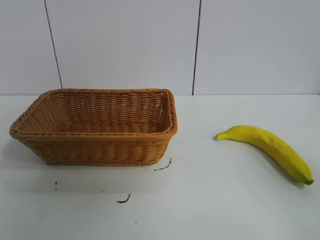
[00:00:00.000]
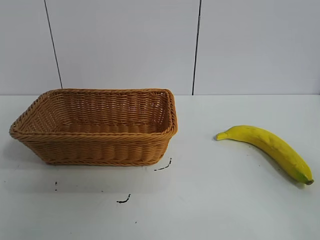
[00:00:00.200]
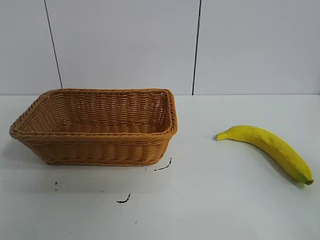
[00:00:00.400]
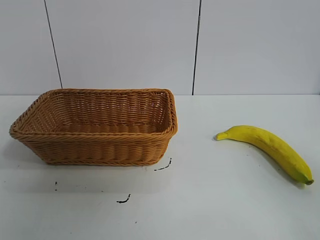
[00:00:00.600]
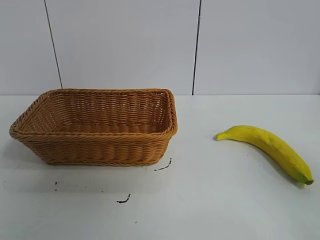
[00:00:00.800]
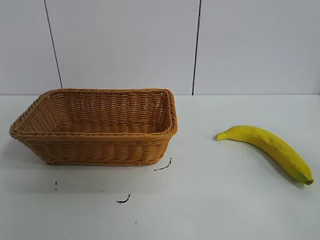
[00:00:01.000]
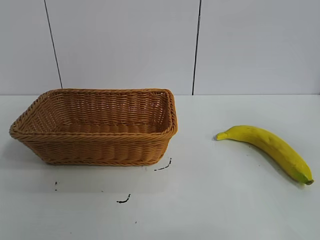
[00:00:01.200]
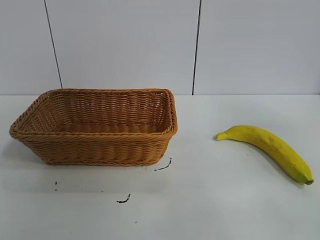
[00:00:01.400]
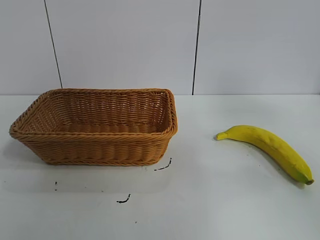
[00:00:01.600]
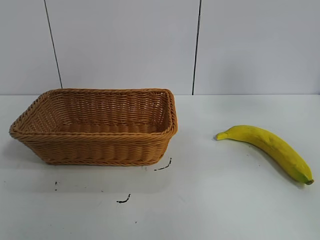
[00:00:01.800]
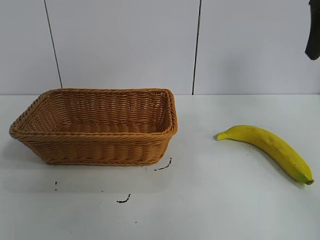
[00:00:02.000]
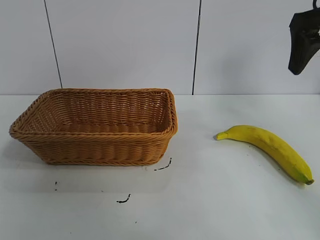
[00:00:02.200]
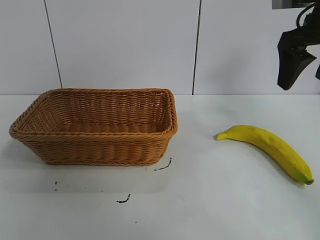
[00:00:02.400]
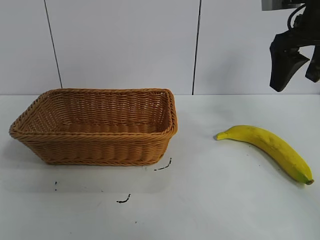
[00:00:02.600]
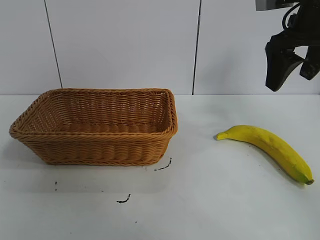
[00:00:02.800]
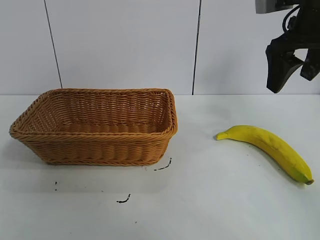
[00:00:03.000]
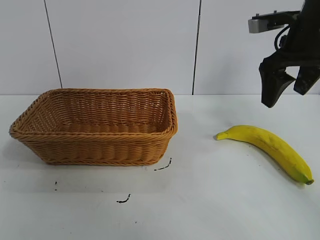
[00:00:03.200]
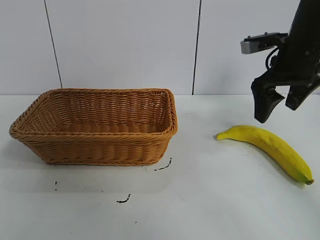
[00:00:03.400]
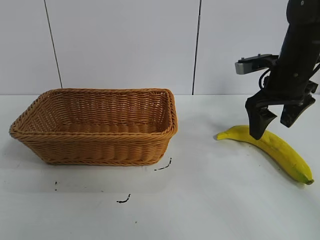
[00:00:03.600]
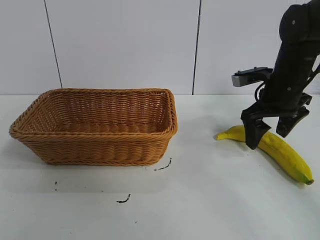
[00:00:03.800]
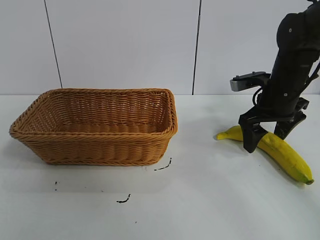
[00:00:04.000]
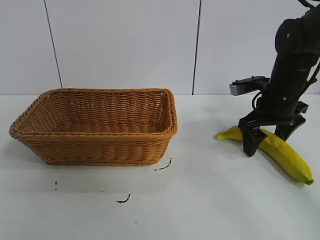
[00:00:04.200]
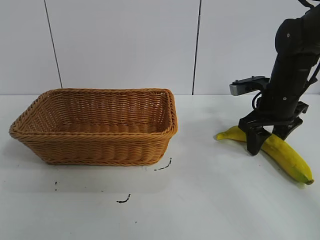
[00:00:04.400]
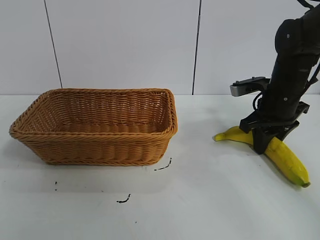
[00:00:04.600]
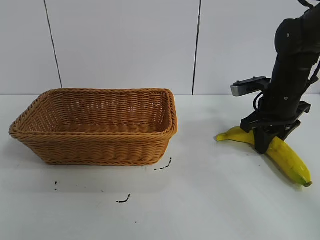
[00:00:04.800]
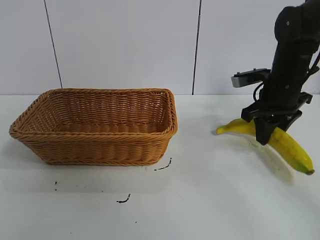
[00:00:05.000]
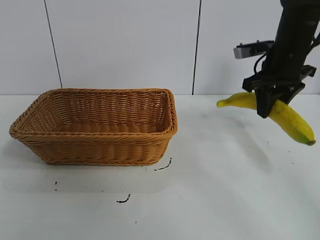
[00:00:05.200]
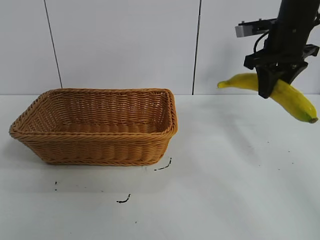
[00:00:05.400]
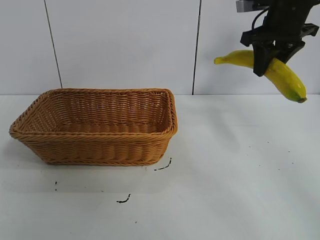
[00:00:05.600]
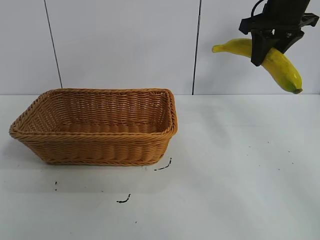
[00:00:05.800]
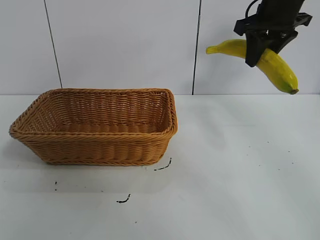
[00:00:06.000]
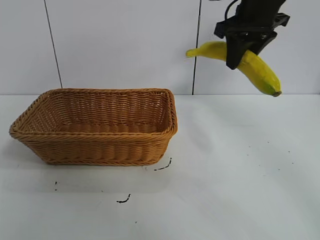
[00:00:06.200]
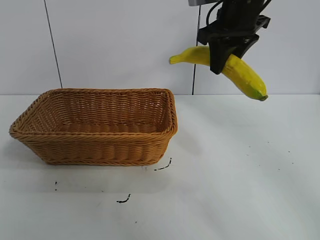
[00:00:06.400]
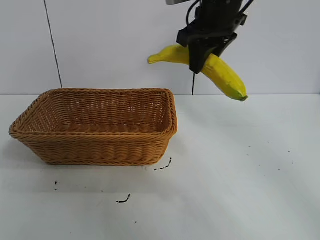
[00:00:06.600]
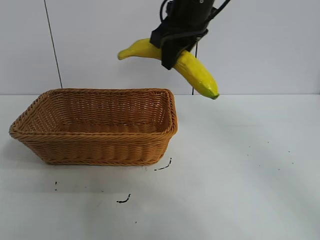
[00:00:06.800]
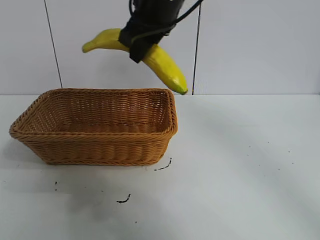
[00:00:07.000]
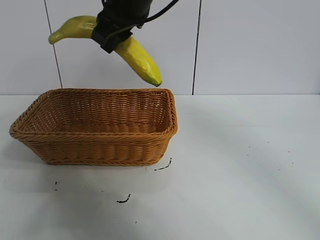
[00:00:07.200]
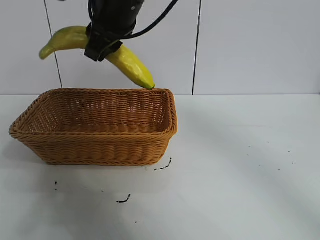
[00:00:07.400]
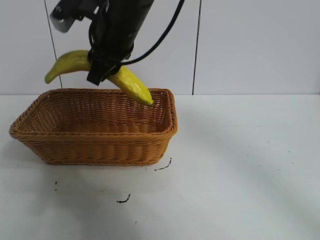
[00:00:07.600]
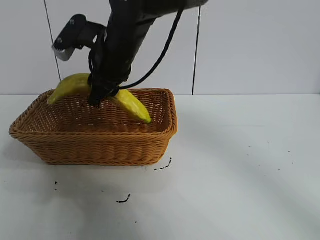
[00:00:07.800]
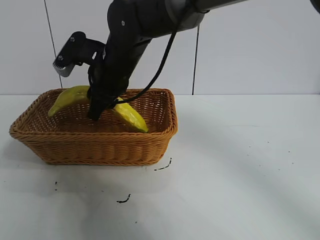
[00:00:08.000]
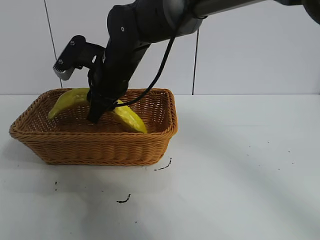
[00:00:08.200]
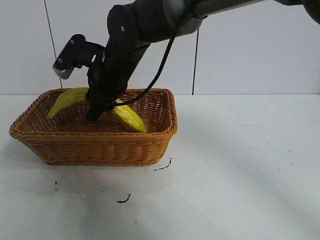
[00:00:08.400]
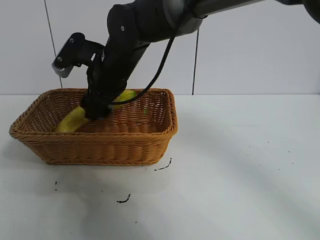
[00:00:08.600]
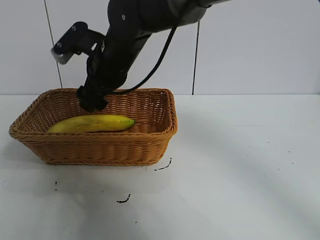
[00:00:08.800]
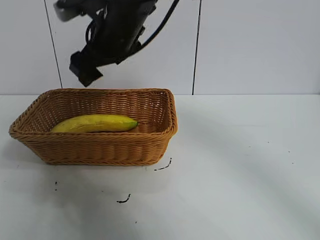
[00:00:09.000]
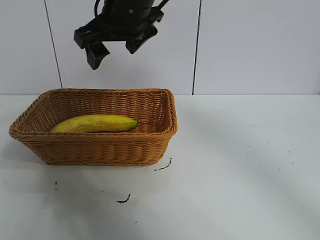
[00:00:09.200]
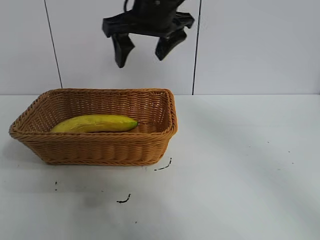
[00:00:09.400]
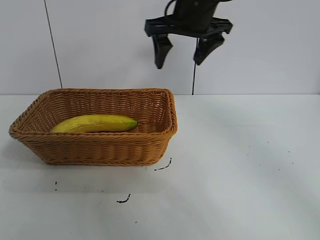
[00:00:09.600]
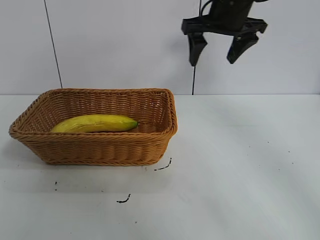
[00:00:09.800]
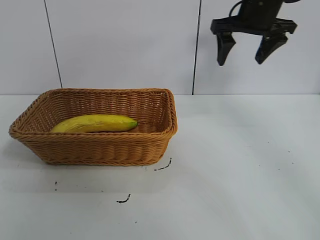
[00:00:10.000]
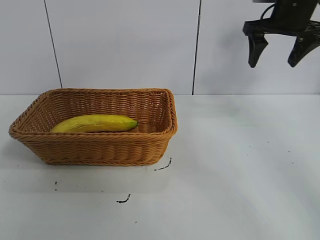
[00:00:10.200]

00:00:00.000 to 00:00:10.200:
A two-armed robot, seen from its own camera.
Task of the whole recording: pick up the banana and put it into the basket.
Step, 00:00:01.000 to 00:00:04.600: Grasp the banana with right gripper.
Step, 00:00:04.800 to 00:00:08.800: Place the banana in the basket with right gripper.
